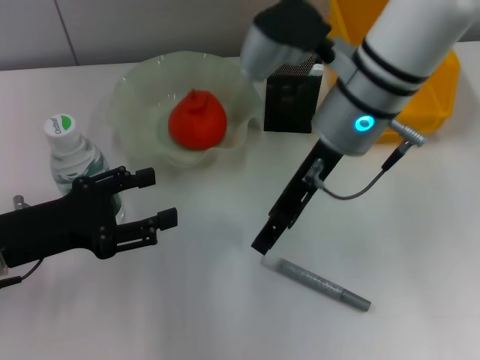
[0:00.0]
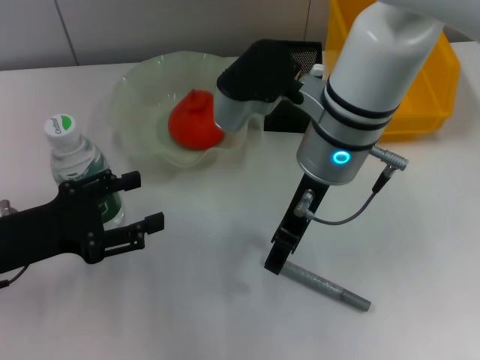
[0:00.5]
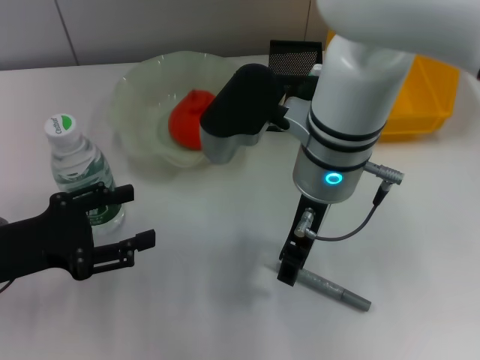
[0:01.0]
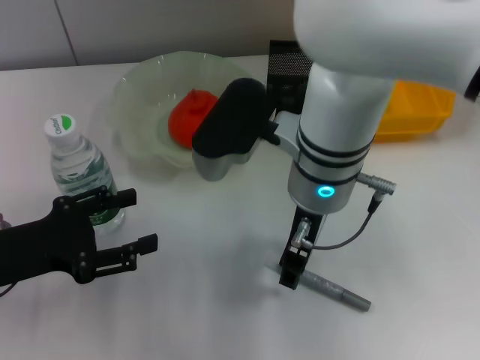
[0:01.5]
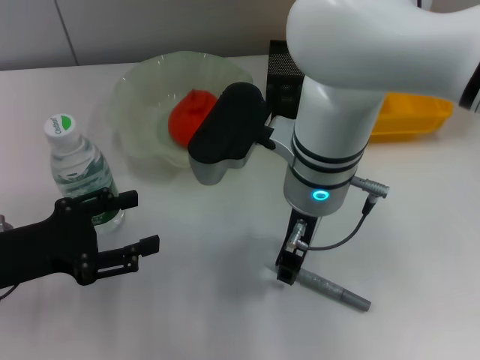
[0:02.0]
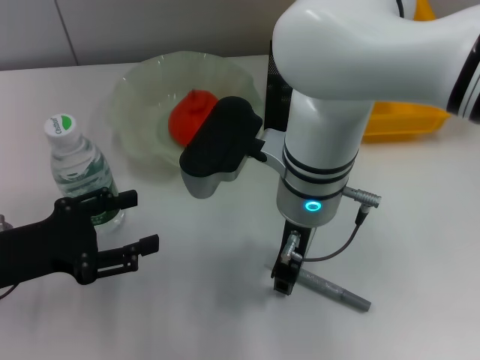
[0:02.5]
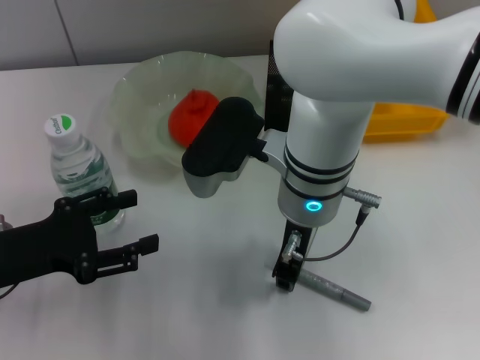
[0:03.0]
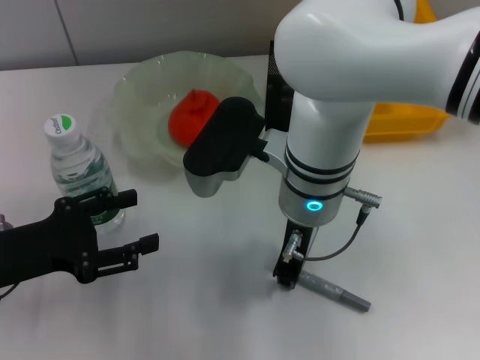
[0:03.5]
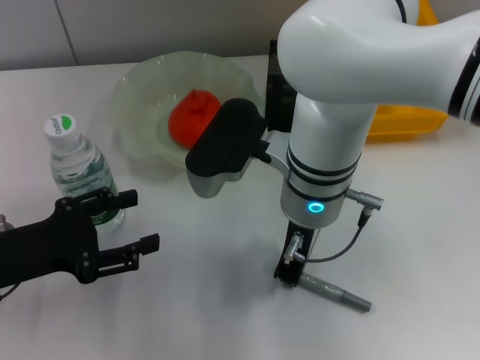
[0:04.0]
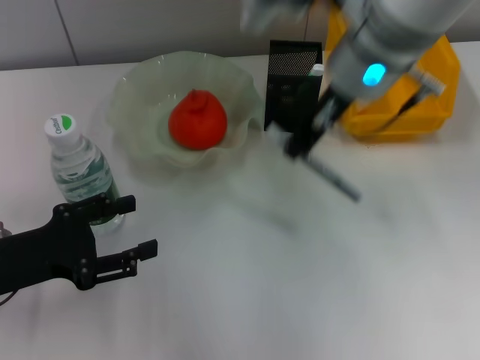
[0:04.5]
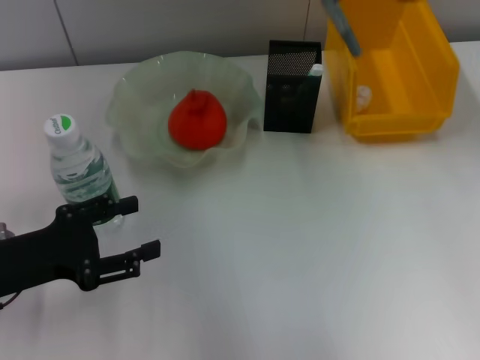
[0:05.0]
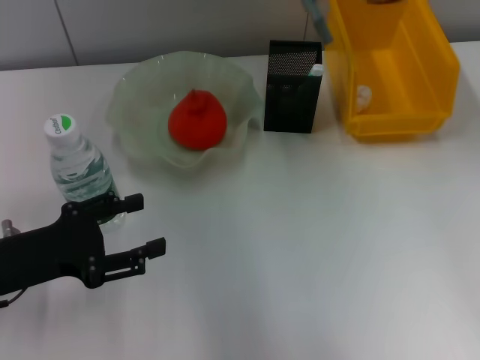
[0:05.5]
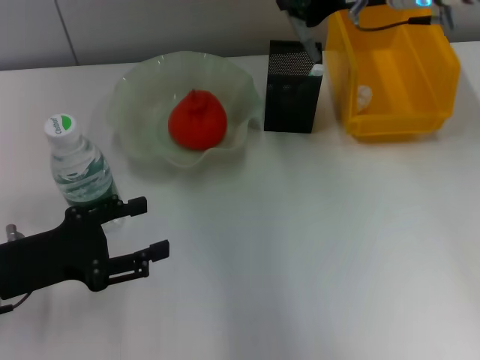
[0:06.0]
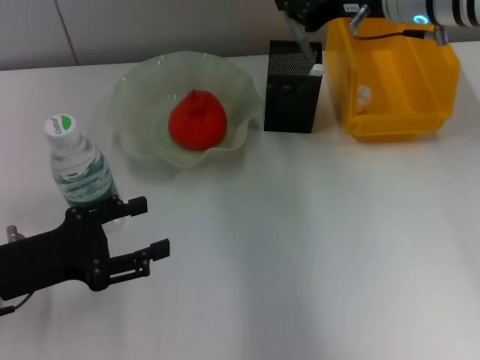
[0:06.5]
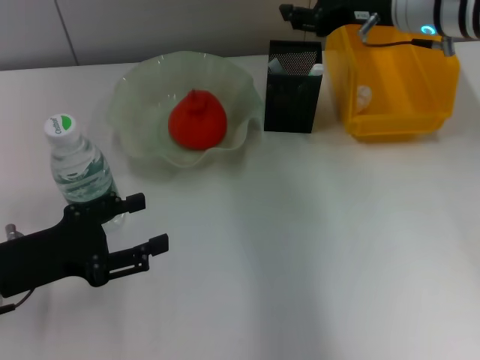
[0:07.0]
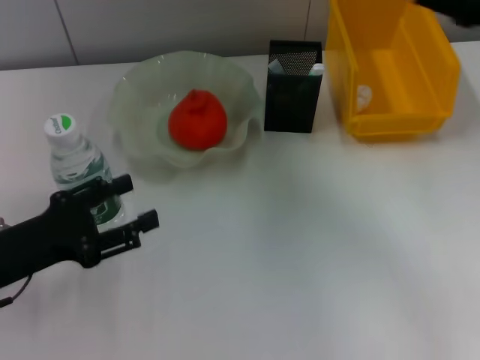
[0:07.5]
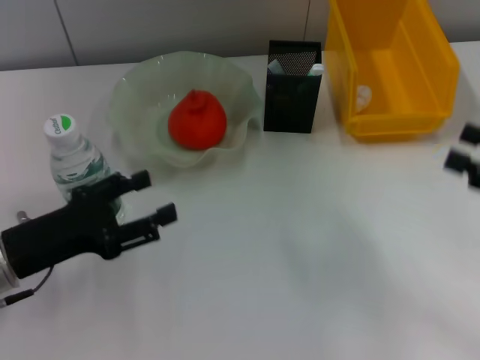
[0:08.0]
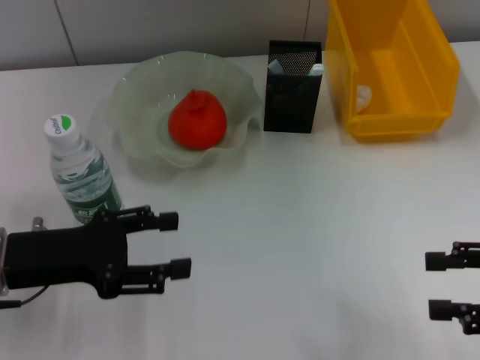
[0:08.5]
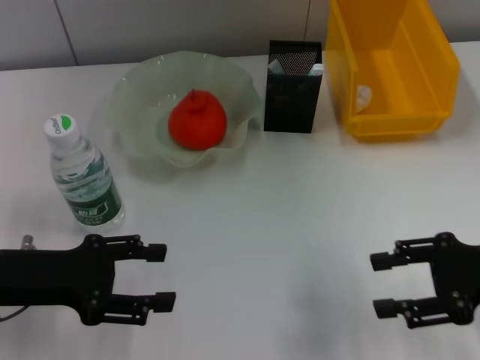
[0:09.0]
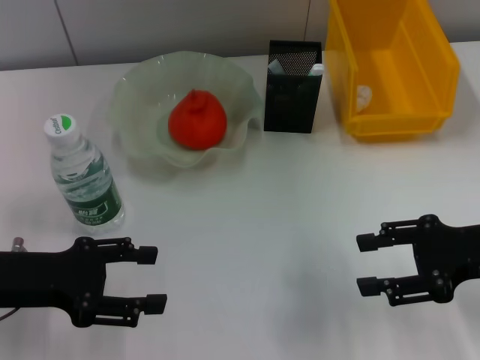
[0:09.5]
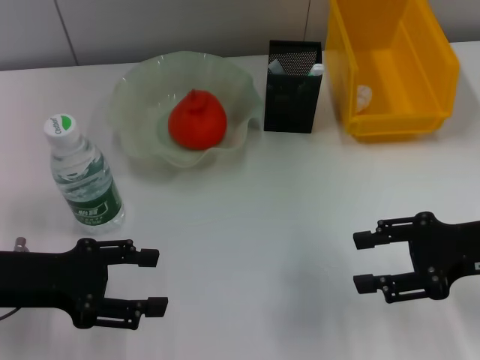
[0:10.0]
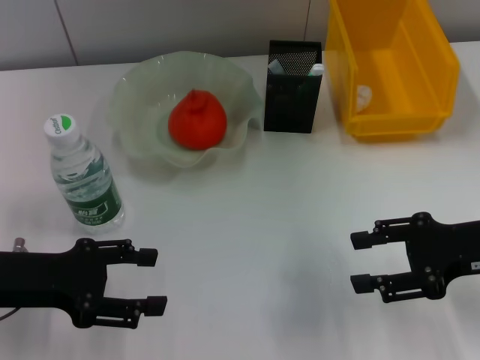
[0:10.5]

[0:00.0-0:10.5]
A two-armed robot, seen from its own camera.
Step, 0:00.0 to 0:03.5: Grab the gray glue with the right hand.
Step, 0:04.0 to 0:07.0: Place the gray glue into the pen holder with the right hand.
0:00.0 to 0:02.0: The right gripper changes place by approximately 5 cm.
0:02.0 to 0:04.0: The right gripper closes up.
0:04.0 to 0:06.5: The right gripper goes roughly 20 cm to the right, forward and upward.
0:06.5 to 0:08.5: The right gripper is displaced backward and to the right by roughly 30 cm, and opens.
0:08.5 to 0:10.5: The right gripper heads forward and to the left, covering approximately 10 cm.
